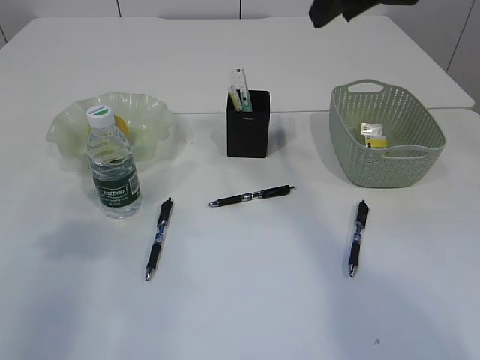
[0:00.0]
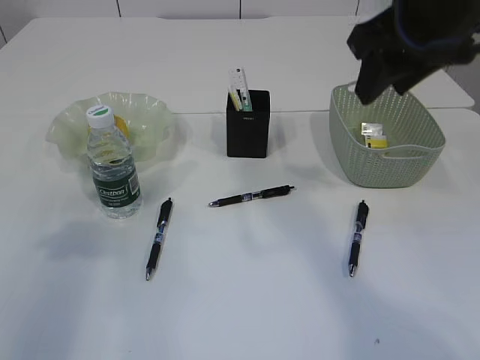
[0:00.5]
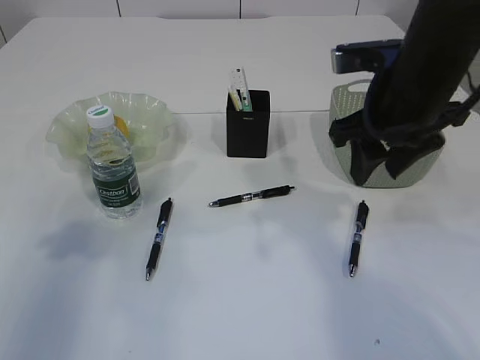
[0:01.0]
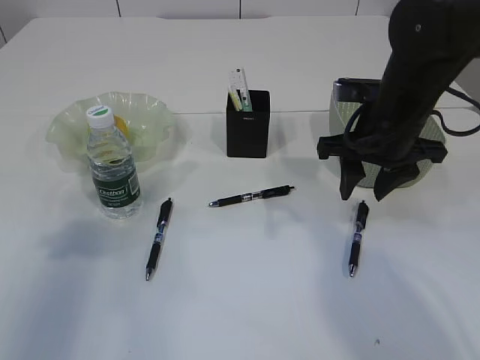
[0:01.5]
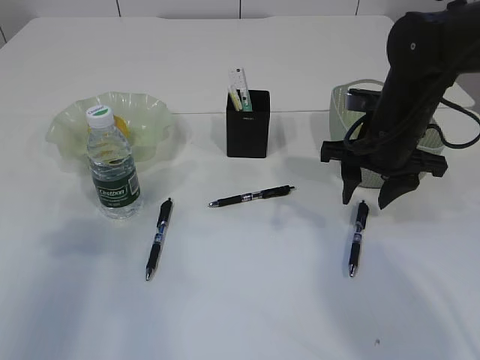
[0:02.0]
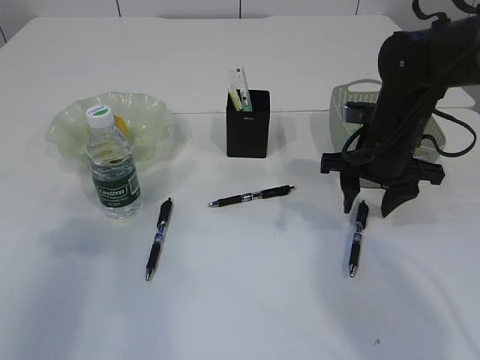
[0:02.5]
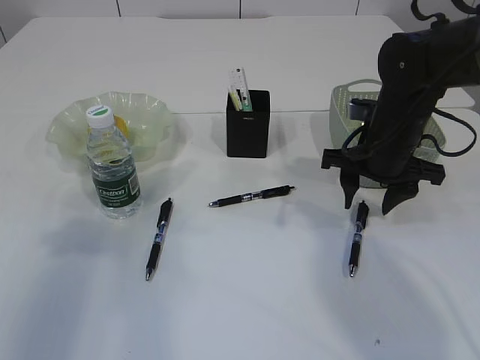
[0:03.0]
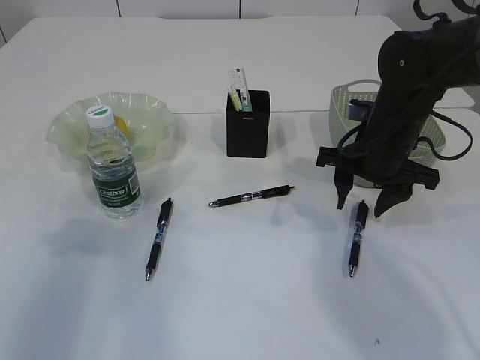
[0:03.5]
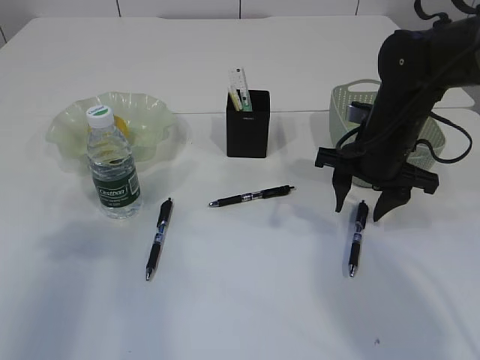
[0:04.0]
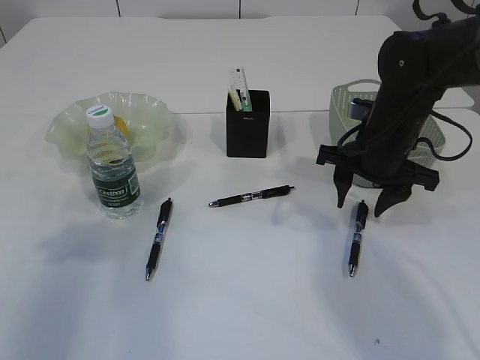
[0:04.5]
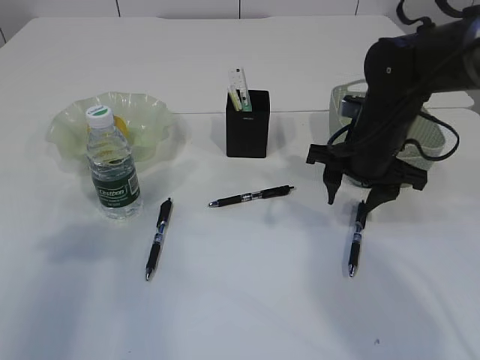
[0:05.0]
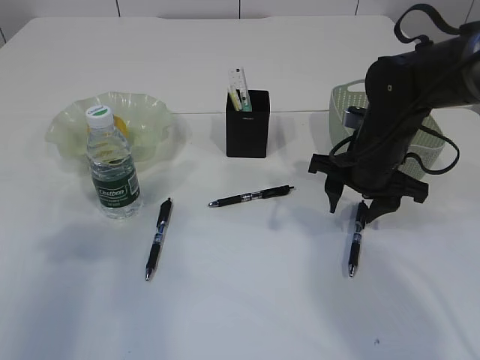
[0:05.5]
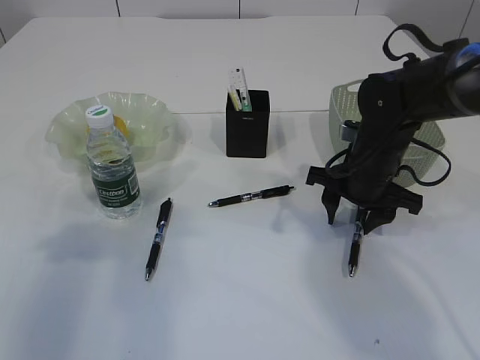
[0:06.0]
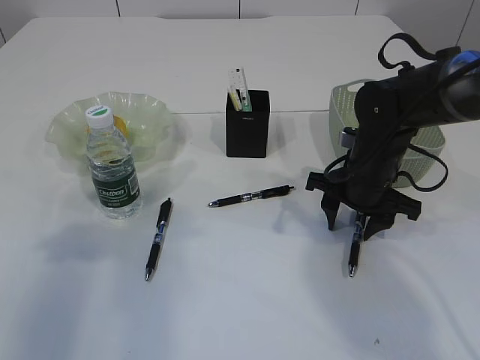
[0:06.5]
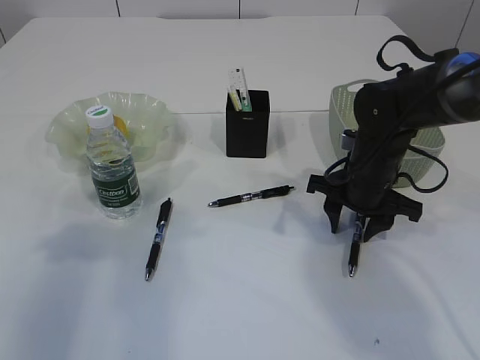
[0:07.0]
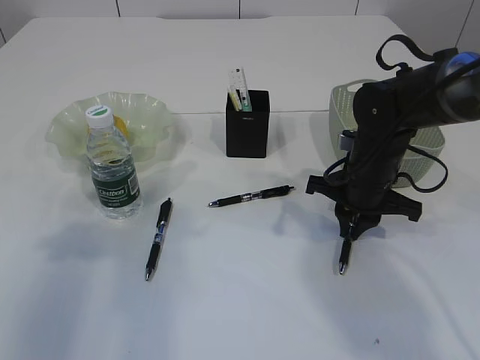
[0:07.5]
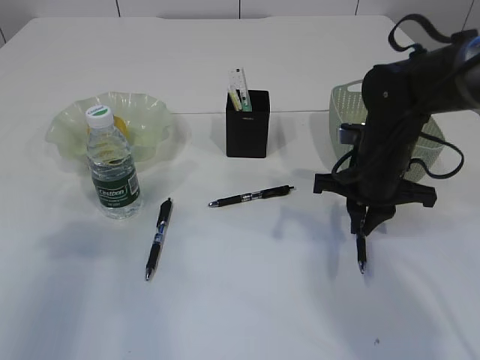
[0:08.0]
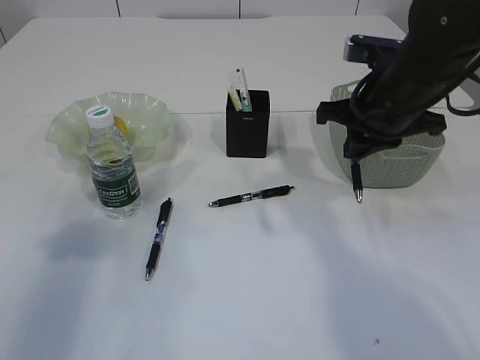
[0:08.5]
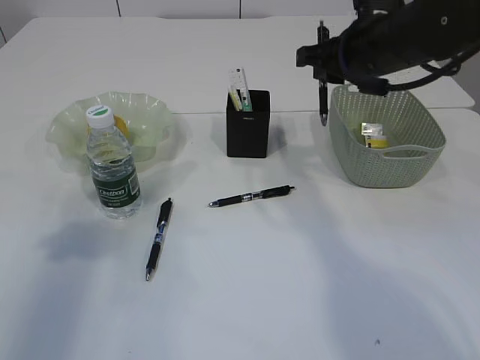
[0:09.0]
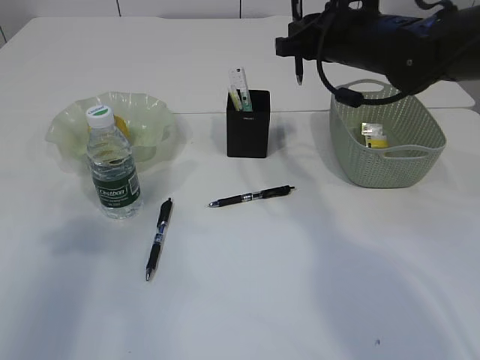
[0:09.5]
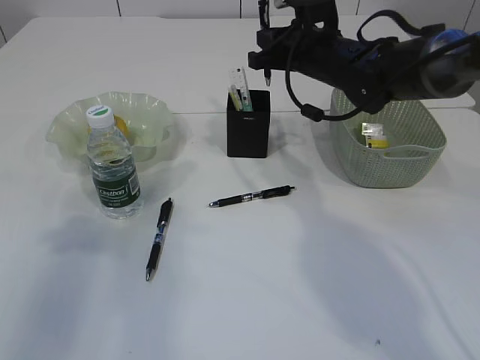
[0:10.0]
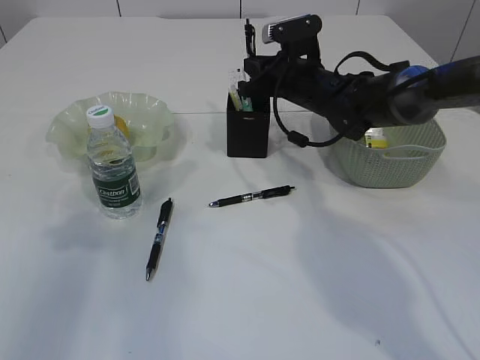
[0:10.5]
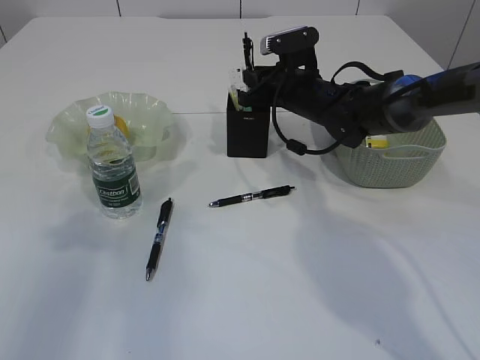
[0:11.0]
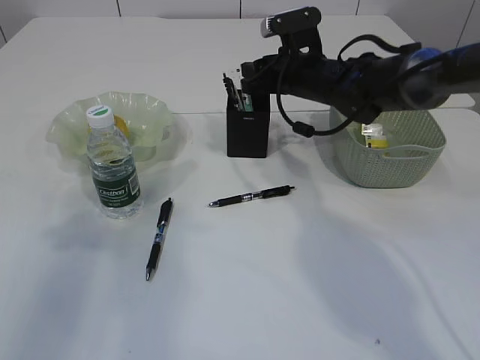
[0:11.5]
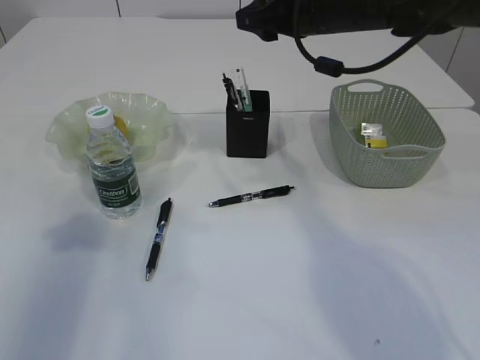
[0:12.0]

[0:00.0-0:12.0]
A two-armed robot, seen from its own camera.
Step, 0.0 to 8.0 s: Pick up the pen with right arm.
Step, 8.5 to 11.5 s: Place the pen into the pen holder.
0.0 to 2.0 s: The right gripper heads downward, covering some 20 cm.
2.0 to 6.0 s: The grippers move only a little.
6.0 to 8.0 s: The right gripper closes.
8.0 to 10.0 s: The right gripper heads forward and upward, covering roughly 15 cm.
10.0 to 12.0 s: The right gripper travels upward by roughly 5 cm, and opens its fingers.

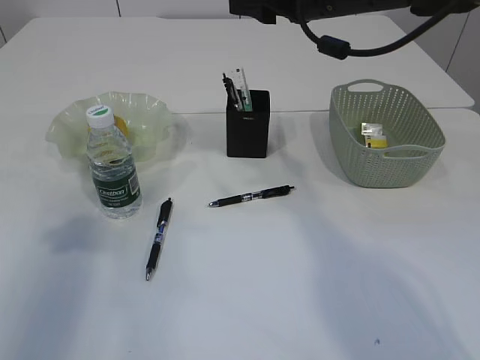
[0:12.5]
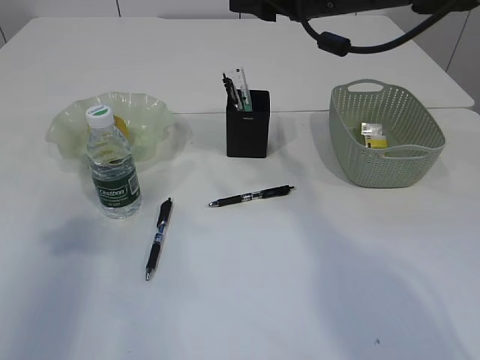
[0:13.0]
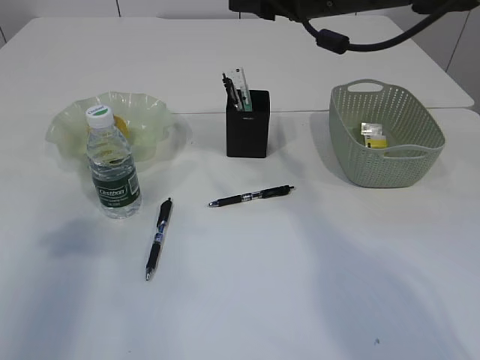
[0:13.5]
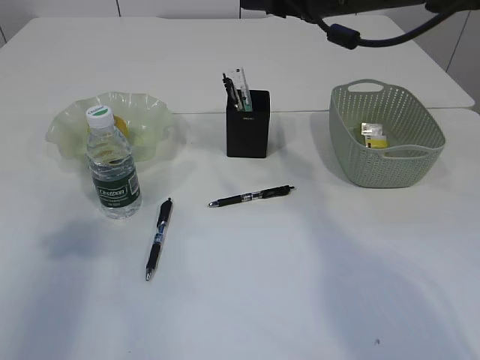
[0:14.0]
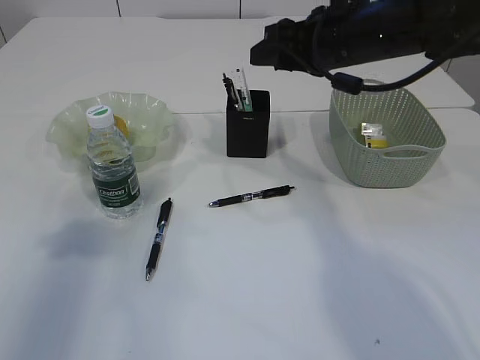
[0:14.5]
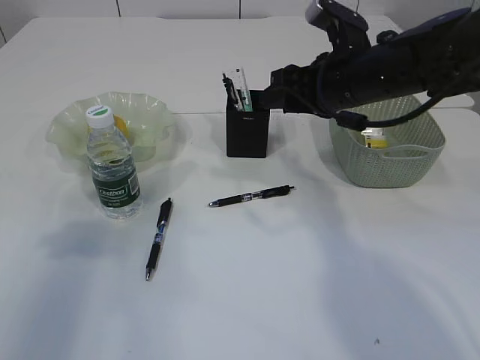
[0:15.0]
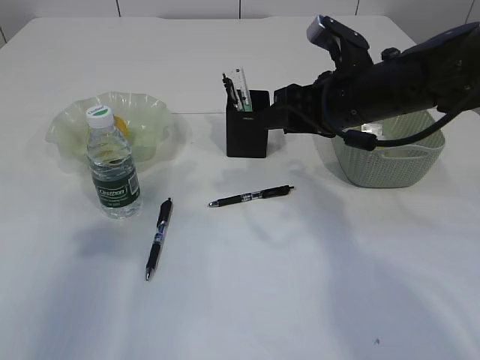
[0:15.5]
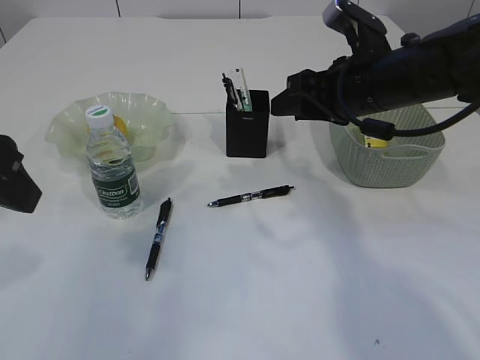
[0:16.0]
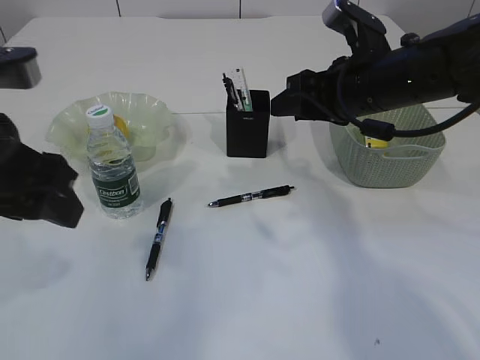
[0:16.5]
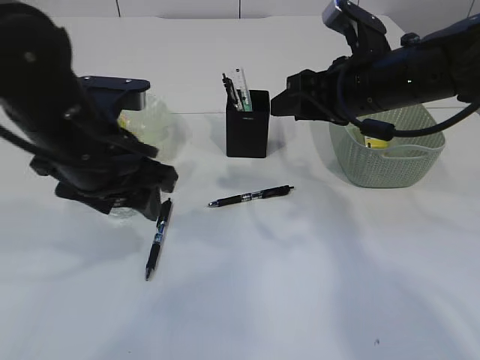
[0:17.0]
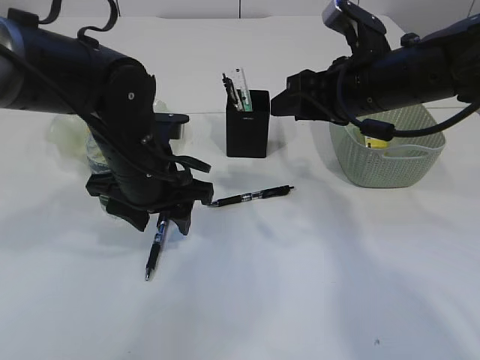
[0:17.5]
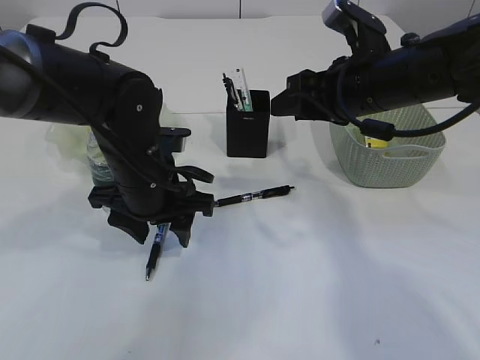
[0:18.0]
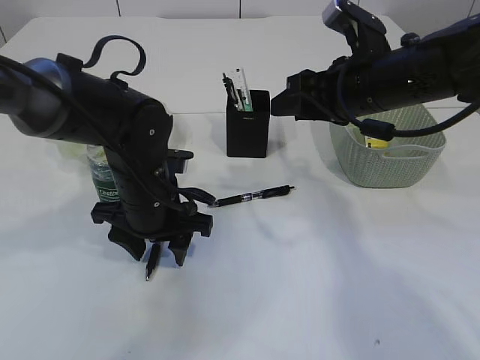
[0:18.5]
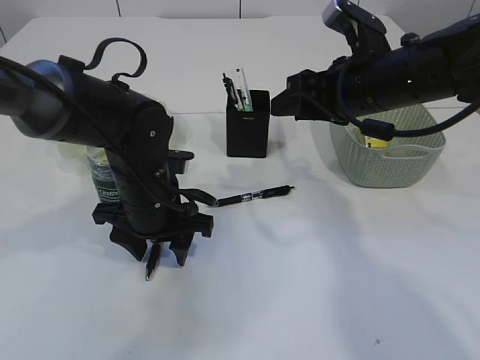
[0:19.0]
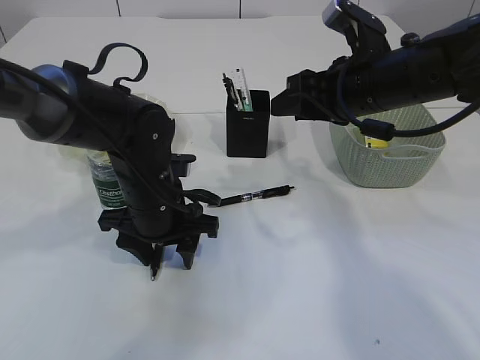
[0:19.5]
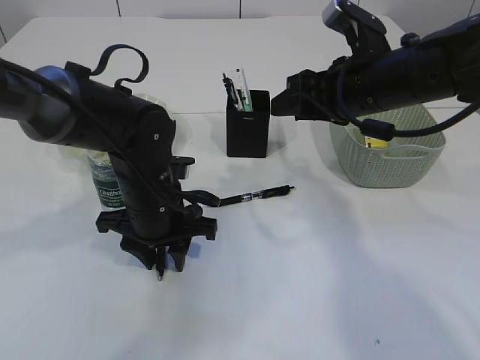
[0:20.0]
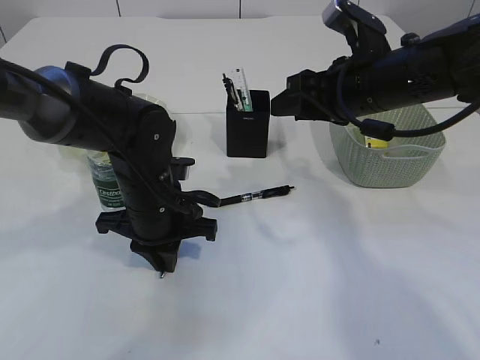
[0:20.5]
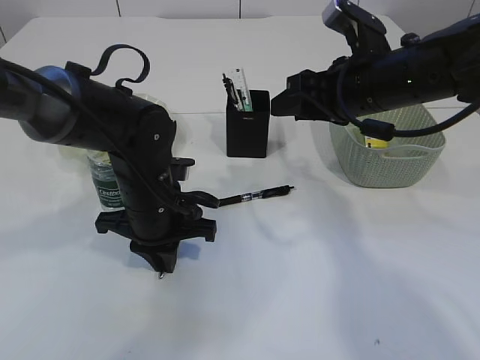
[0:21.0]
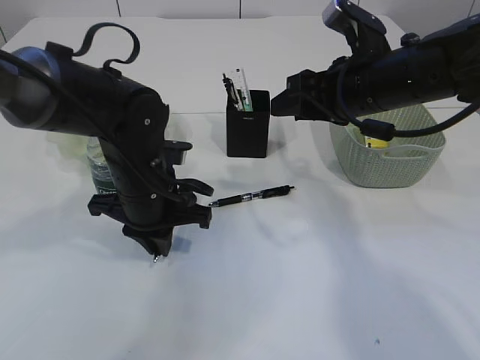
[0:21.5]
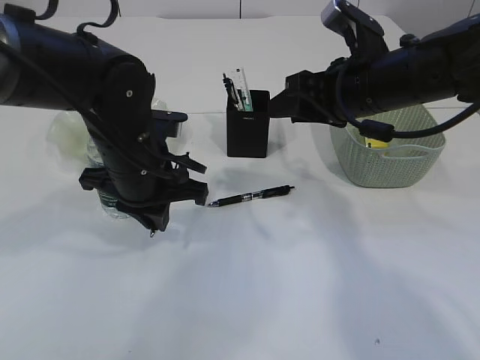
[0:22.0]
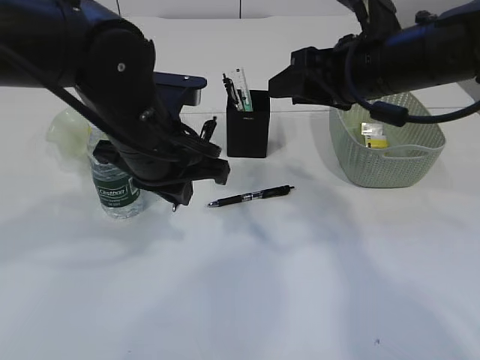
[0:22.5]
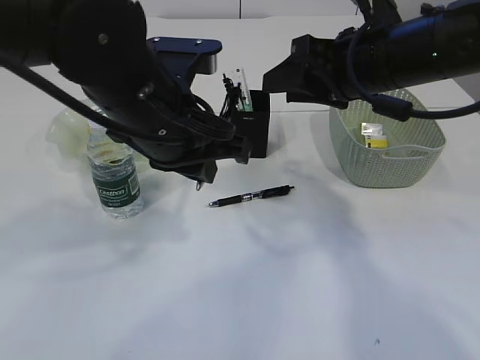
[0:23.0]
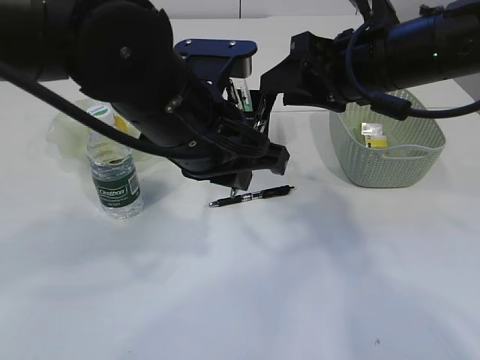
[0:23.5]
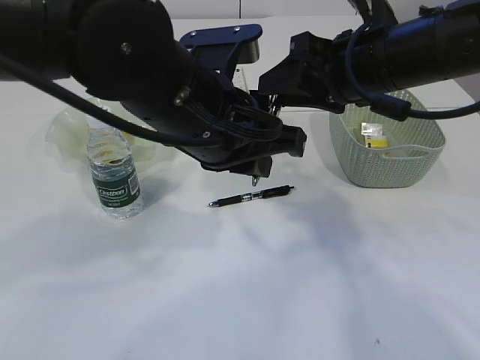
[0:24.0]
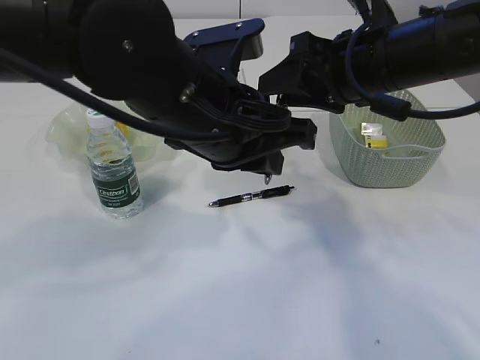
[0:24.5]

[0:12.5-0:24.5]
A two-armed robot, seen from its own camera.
Step, 12.5 to 22.0 s: Pick up the pen with left arm.
12.5 to 14.5 s: The right gripper changes place by about 5 cm.
14.5 to 16.5 s: The left gripper travels to the right by approximately 10 cm, while the right gripper changes place by approximately 5 cm.
16.5 to 18.5 s: The left gripper heads downward, forward and to the right, covering roughly 20 cm.
18.5 to 20.5 s: The left gripper closes its fingers.
20.5 to 22.5 s: The left gripper heads upward, covering some 10 cm.
22.5 to 24.5 s: The left gripper shifts approximately 5 cm to the right.

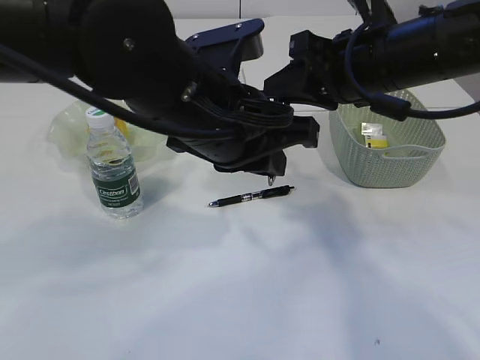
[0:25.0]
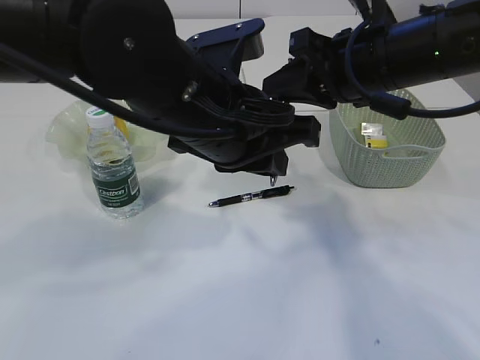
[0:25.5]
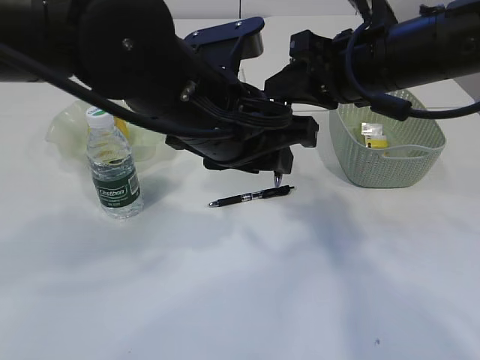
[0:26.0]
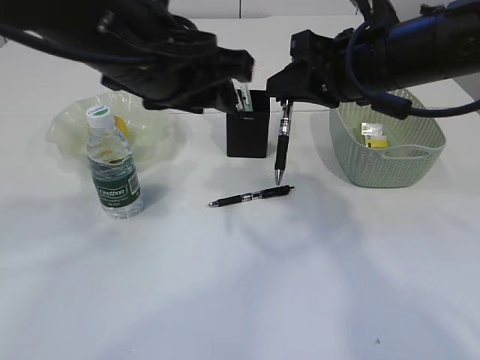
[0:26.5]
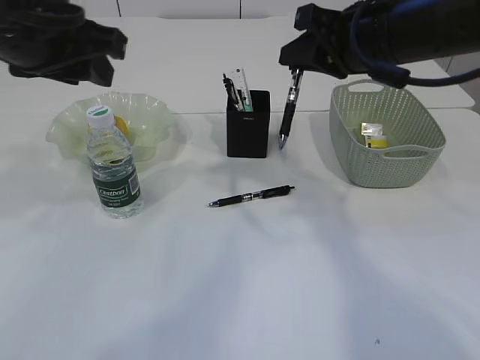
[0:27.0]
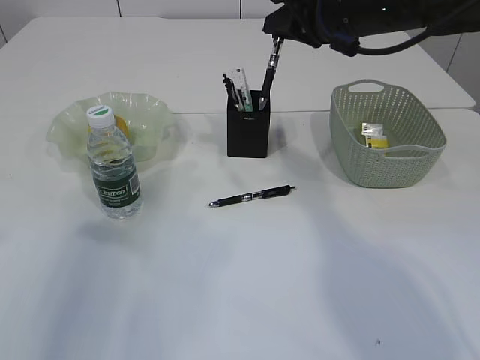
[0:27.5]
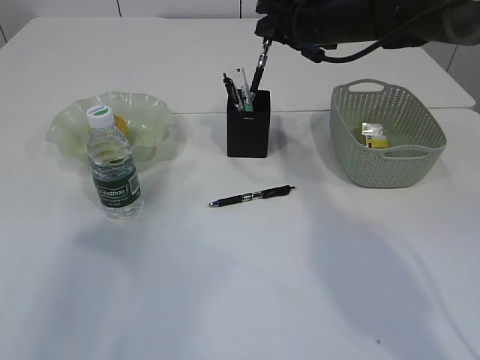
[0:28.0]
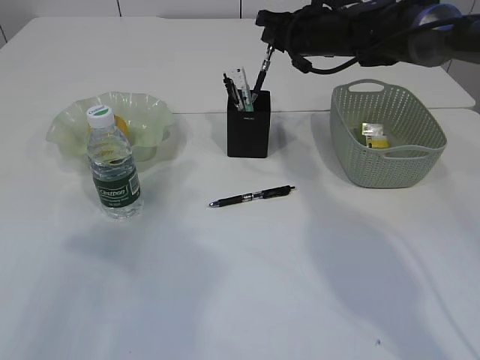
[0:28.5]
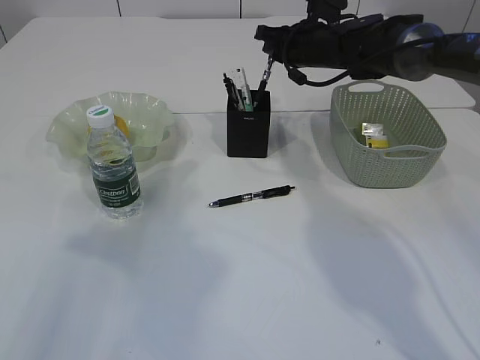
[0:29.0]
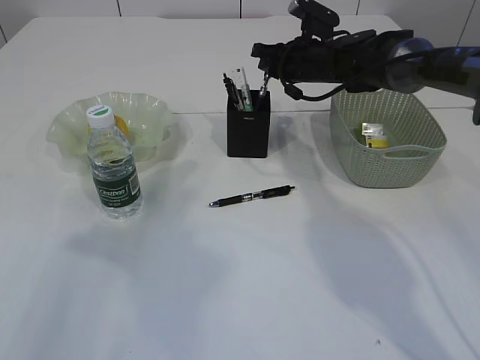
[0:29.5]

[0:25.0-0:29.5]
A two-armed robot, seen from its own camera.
25.0 to 27.0 s: The left gripper heads to the left and upward, covering roughly 15 cm, and opens.
27.0 to 29.5 s: The left gripper is displaced to the left and backward by roughly 15 cm, while the right gripper heads forward and downward, covering some 20 cm.
